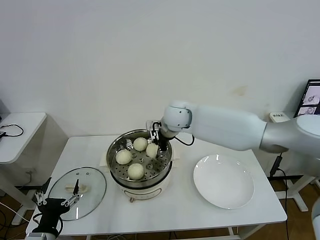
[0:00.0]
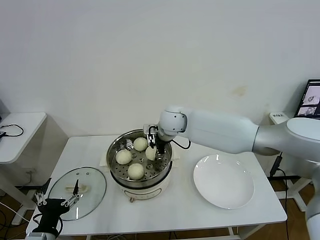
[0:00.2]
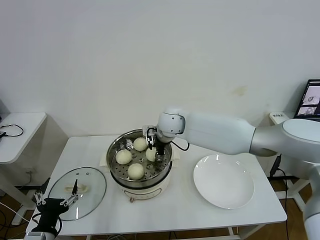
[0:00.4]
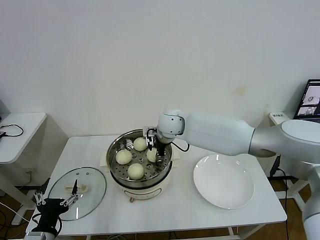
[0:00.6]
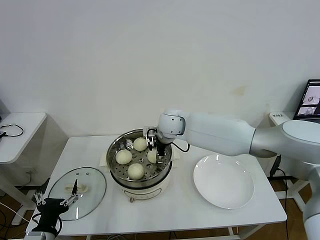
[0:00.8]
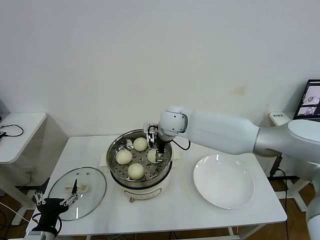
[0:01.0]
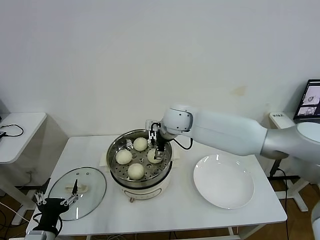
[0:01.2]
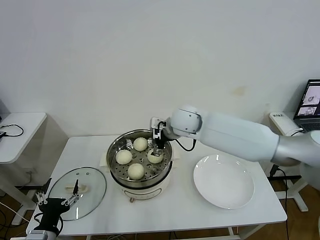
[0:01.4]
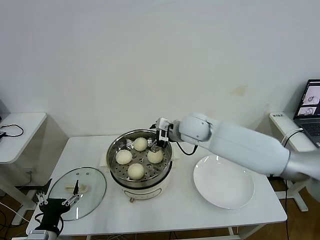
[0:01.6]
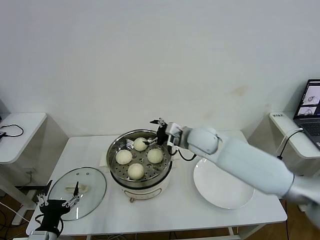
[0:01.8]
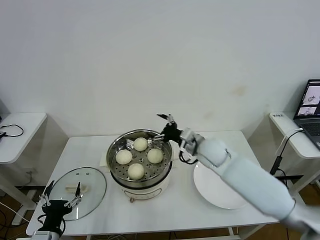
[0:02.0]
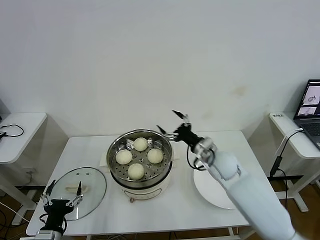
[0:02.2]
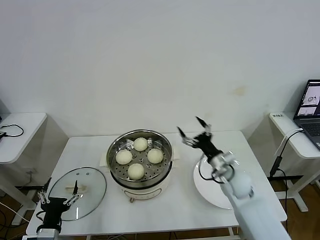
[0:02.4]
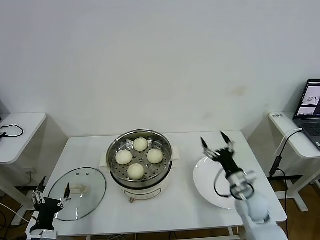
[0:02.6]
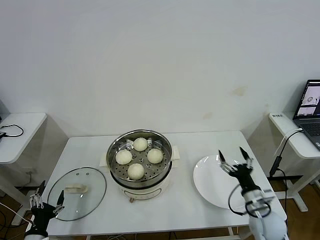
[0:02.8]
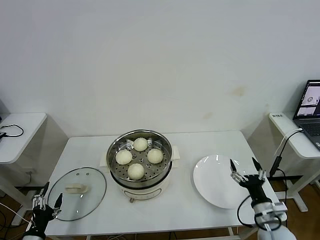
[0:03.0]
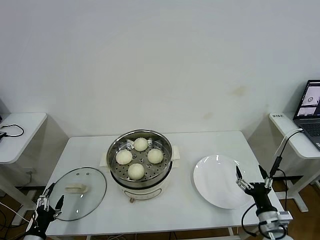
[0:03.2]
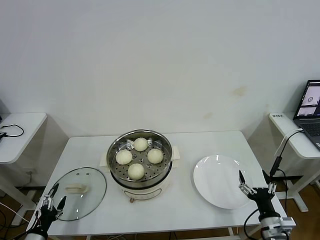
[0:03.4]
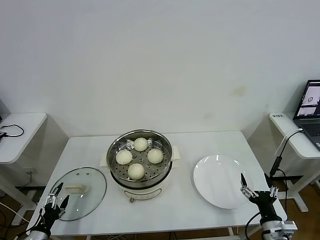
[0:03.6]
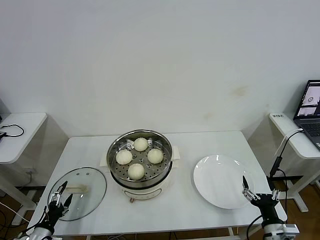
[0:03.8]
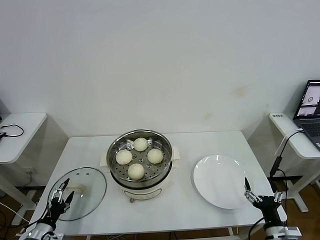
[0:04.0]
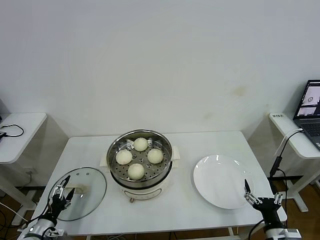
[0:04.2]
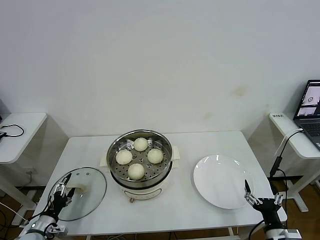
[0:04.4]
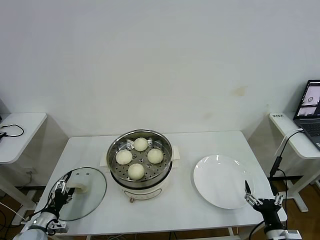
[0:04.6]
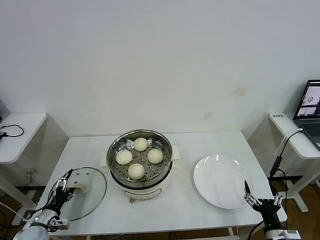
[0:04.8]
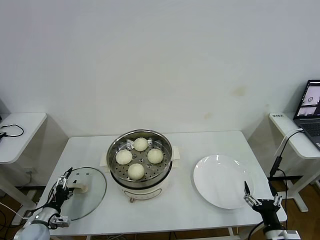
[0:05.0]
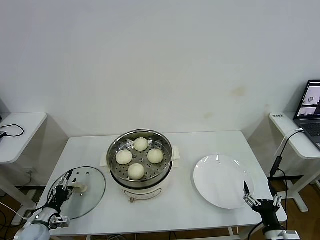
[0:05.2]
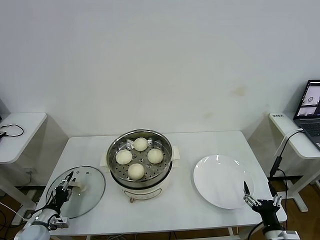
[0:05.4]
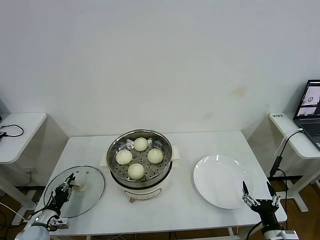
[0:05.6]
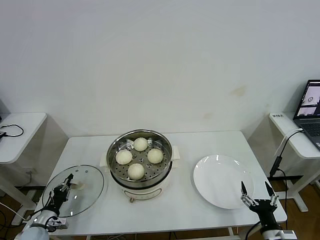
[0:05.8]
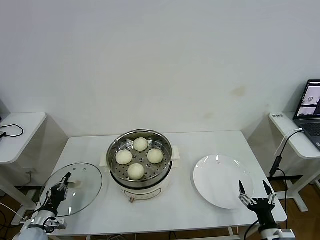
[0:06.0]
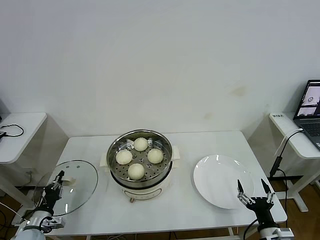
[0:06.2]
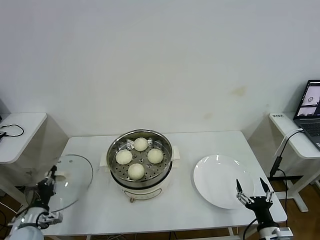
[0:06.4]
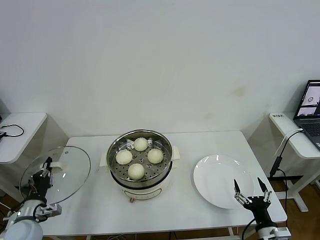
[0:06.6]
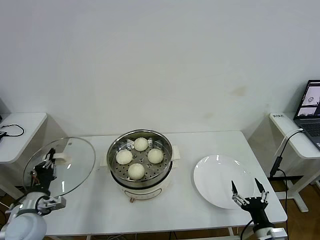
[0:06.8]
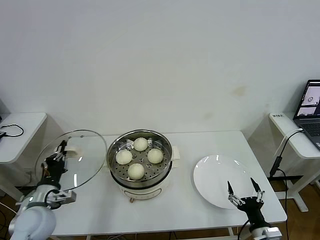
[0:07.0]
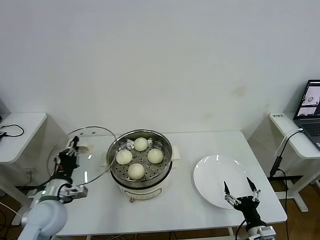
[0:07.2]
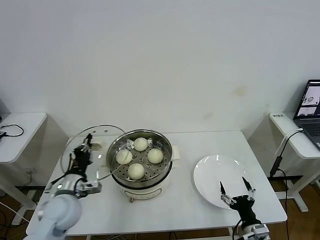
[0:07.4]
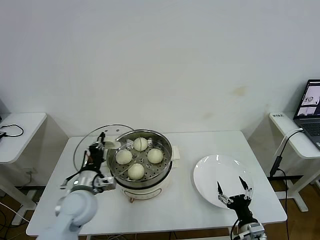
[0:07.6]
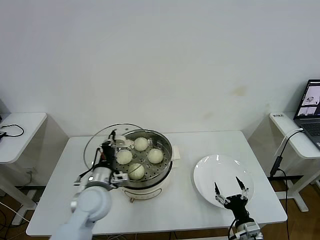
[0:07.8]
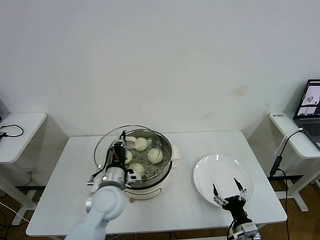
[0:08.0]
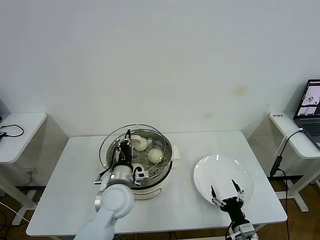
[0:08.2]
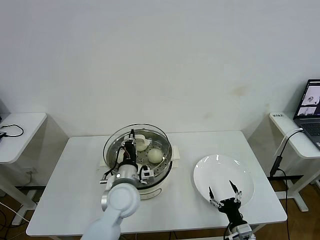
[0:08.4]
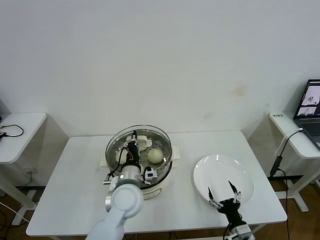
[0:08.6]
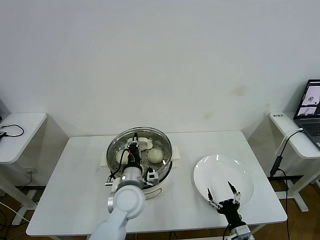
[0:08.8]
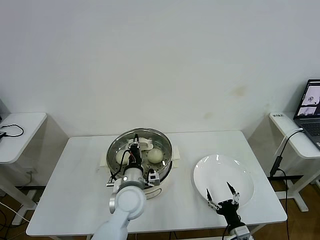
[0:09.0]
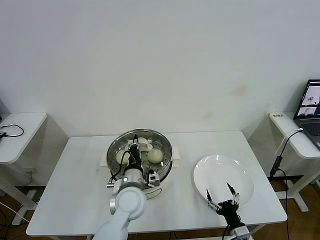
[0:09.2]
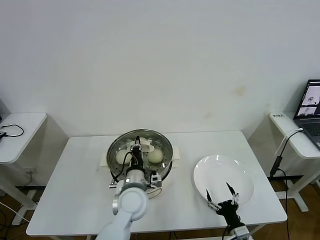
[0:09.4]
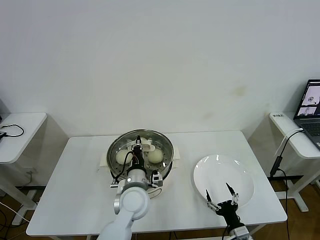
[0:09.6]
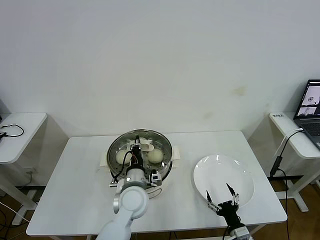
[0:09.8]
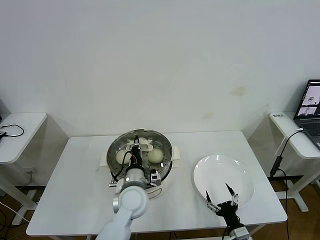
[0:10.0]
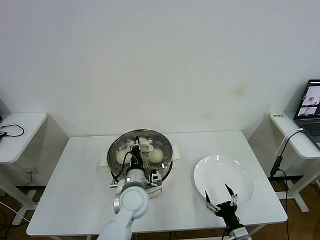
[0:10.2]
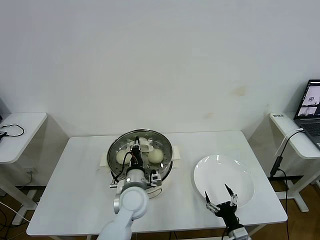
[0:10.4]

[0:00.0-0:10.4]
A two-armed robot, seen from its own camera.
Task of the whole recording: take steamed baozi put them in steamer then cover it.
Step, 0:01.0 to 0:05.8: Grasp the pot lid with left gripper.
0:00.0 to 0:01.4: The right gripper opens up.
0:01.4 to 0:03.0: The left gripper shifts approximately 15 cm to the left and downward, while the right gripper is displaced backward, to the right and downward by roughly 40 cm.
0:03.0 to 0:04.4: The left gripper moves forward, roughly 10 cm, while the right gripper shifts approximately 5 cm backward.
0:04.4 to 0:06.0: The left gripper closes its fingers.
0:06.0 to 0:07.4: The left gripper travels upward and to the right by roughly 25 cm.
0:07.4 to 0:09.0: The left gripper heads to the right, covering roughly 20 cm.
0:09.0 to 0:10.4: The grippers make only small movements.

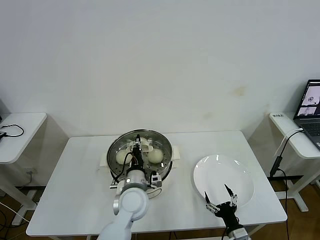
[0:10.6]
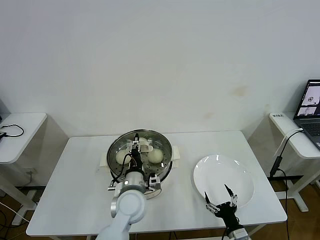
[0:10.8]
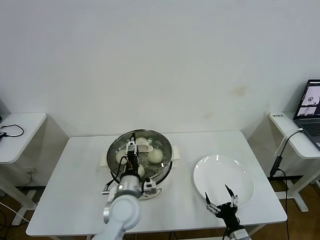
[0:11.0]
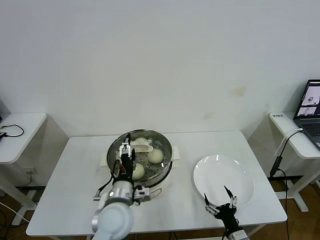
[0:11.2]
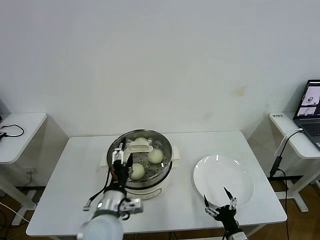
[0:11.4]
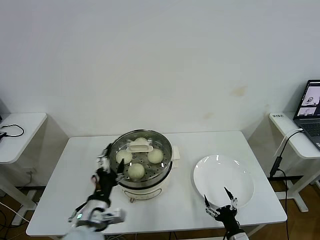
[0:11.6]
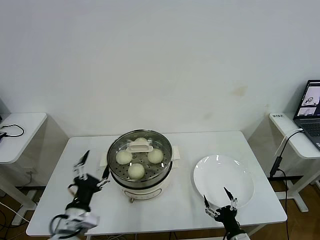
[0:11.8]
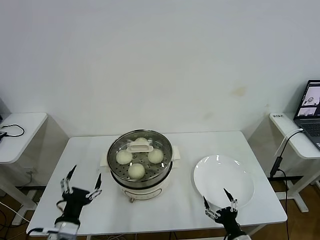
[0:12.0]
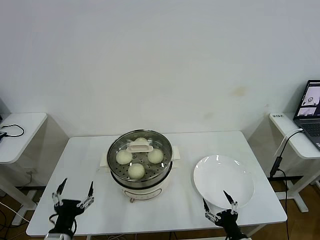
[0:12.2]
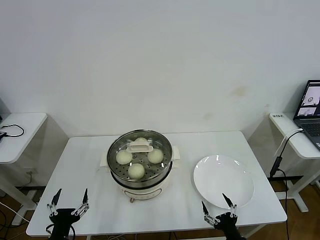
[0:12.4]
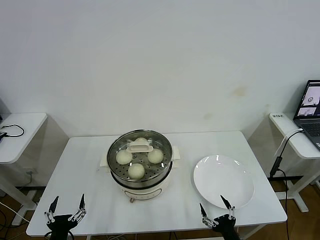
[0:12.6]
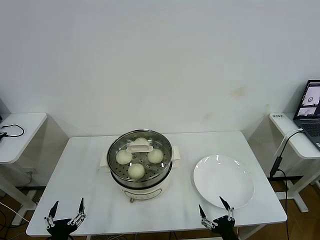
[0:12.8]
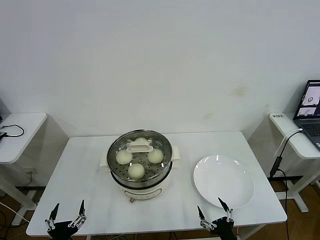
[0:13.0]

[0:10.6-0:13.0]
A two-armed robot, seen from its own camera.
Task of the whole recording: take steamed baozi put them in steamer then cover it.
0:10.6 to 0:11.8: The left gripper travels to the left and backward by roughly 20 cm, and opens its fingers.
0:11.8 to 0:13.0: The left gripper travels downward, backward and to the left by roughly 15 cm.
